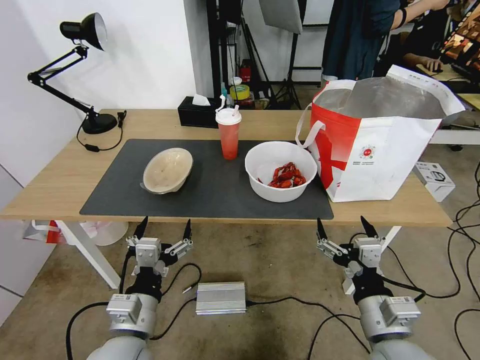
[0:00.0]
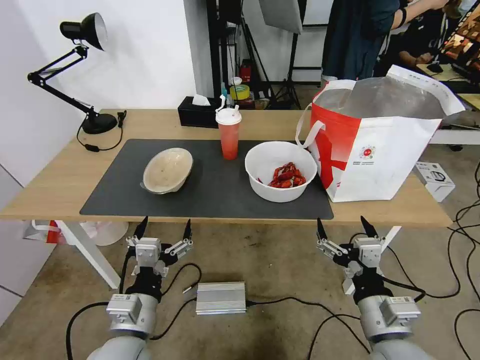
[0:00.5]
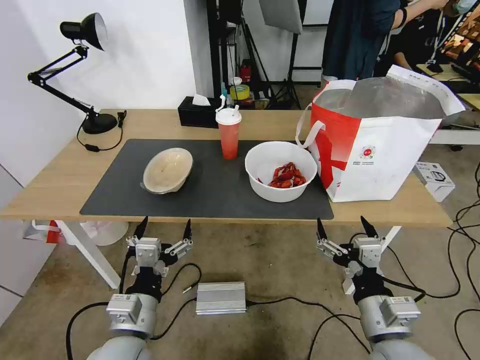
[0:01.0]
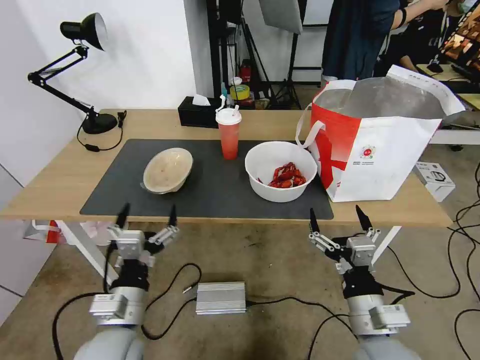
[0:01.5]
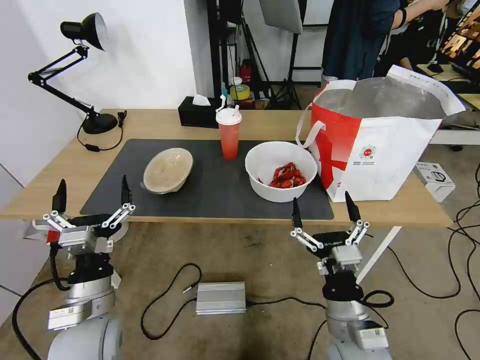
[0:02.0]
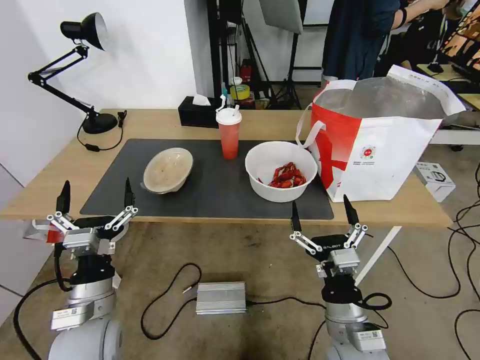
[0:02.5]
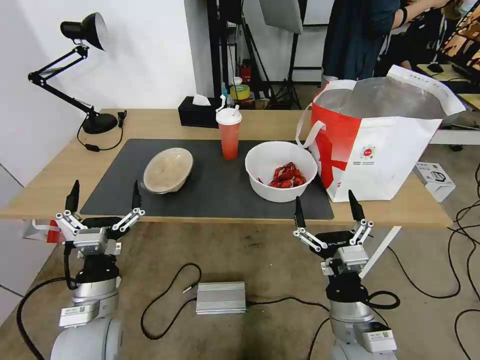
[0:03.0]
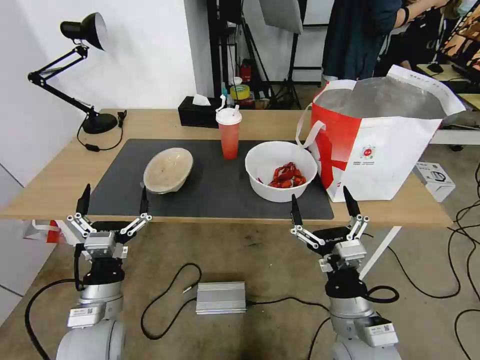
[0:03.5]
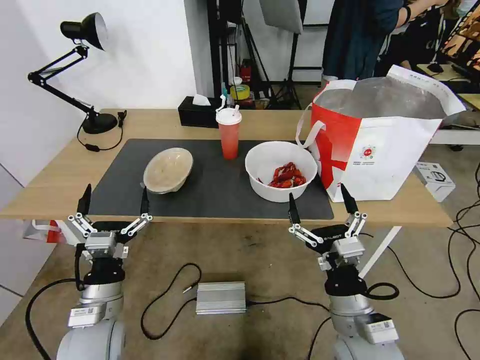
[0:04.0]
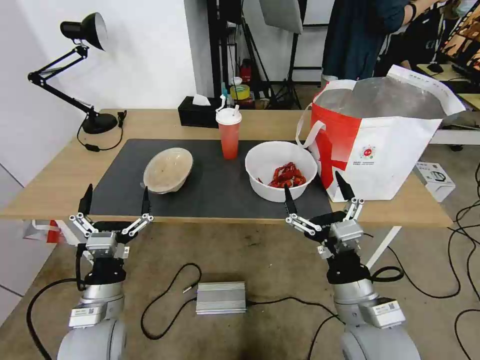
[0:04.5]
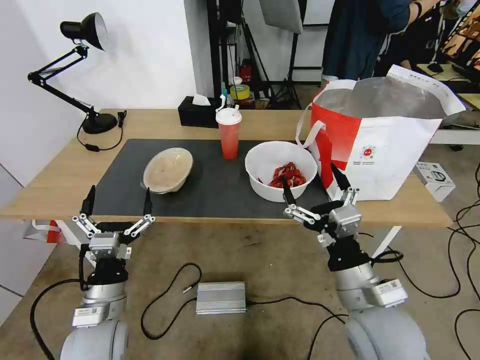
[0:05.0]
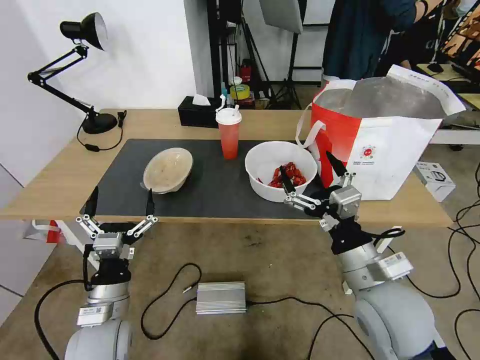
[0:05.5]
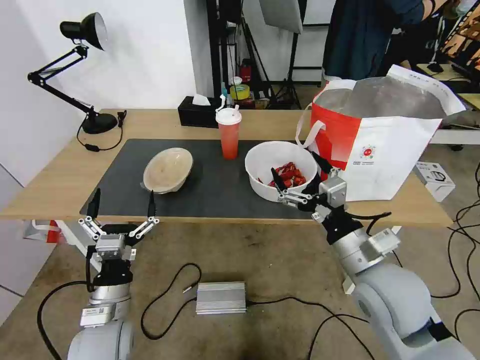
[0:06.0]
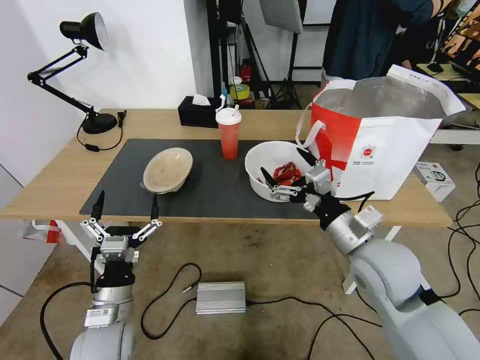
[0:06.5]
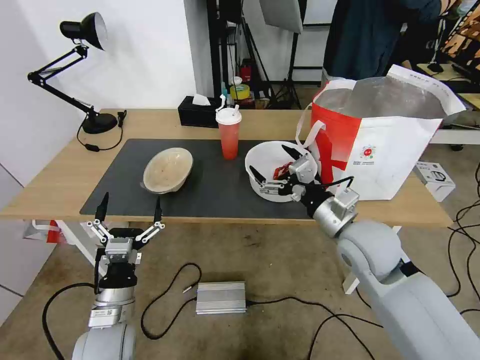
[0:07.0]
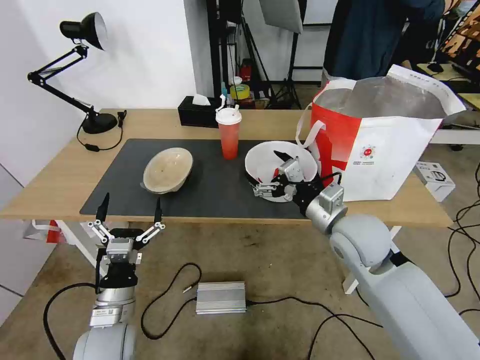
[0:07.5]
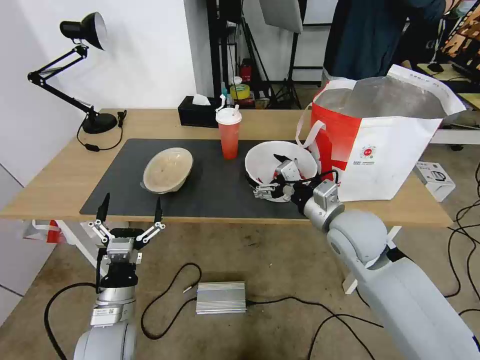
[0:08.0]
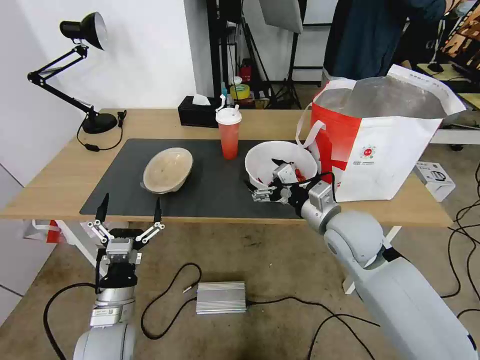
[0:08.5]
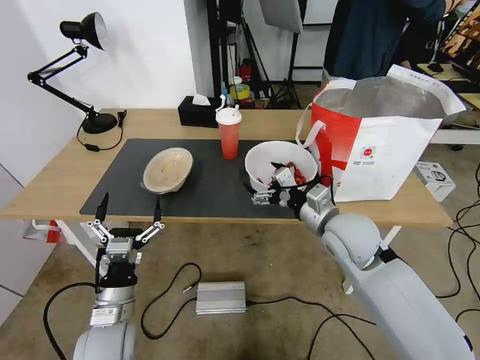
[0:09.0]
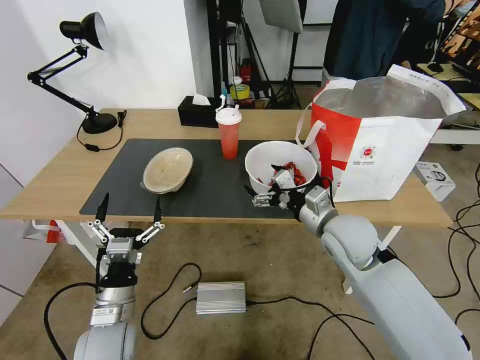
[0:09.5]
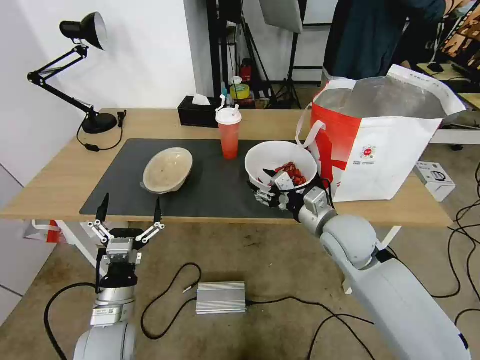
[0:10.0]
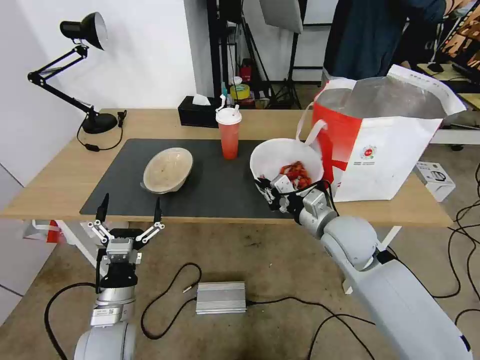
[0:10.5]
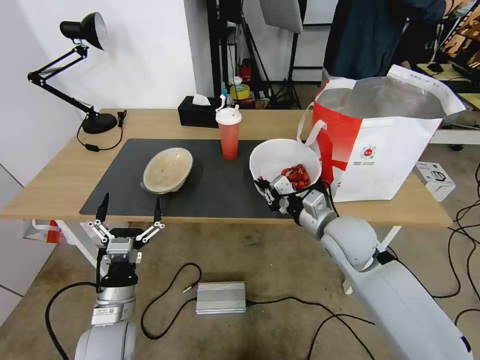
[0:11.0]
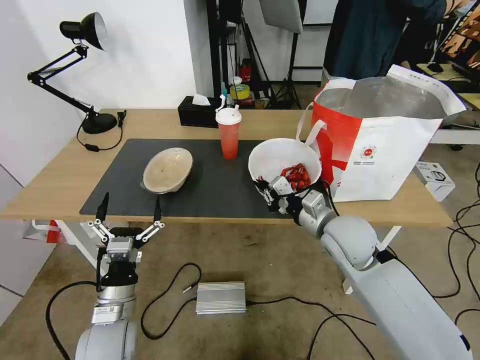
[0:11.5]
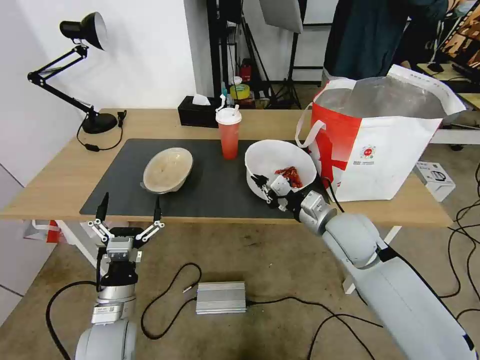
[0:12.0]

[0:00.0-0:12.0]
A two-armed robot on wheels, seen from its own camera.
Task of the whole recording: Pick up the trash from the table and place it into the takeout bag.
0:02.0 to 0:04.0: There are only small adjustments of the grippers.
0:04.0 to 0:06.0: The right gripper goes approximately 10 cm upward and forward.
0:06.0 to 0:08.0: The right gripper heads forward, covering approximately 10 cm.
0:08.0 to 0:10.0: The right gripper closes up.
0:10.0 to 0:12.0: The right gripper closes.

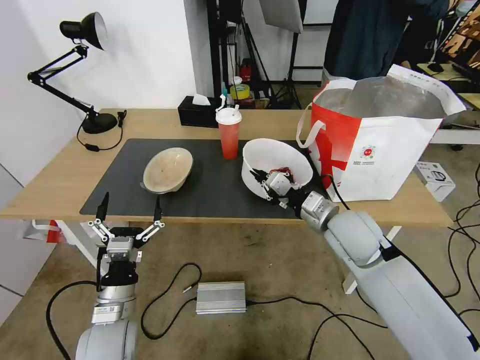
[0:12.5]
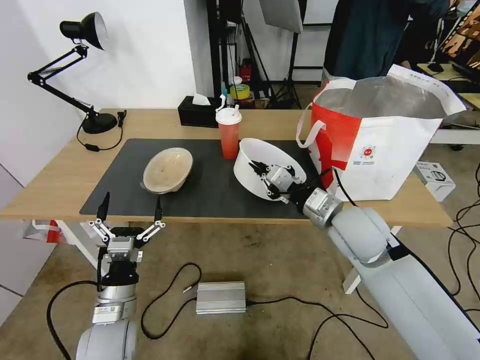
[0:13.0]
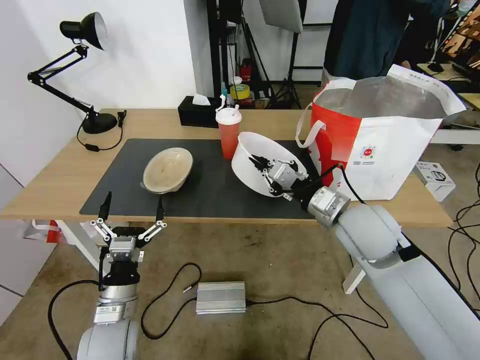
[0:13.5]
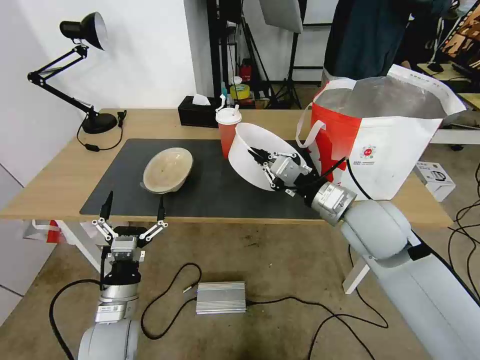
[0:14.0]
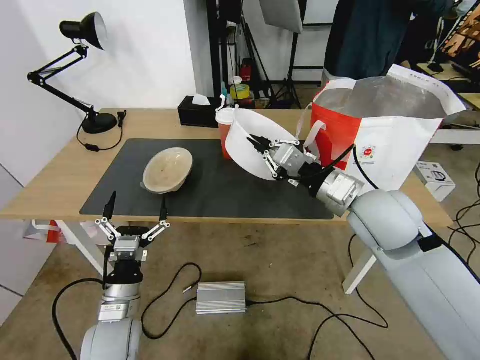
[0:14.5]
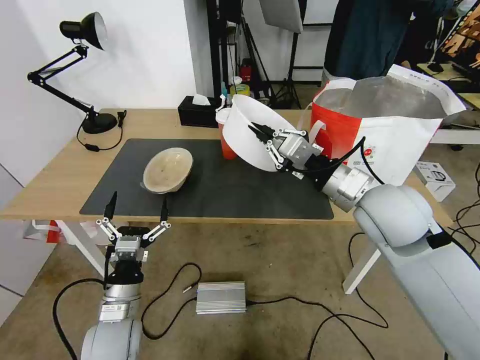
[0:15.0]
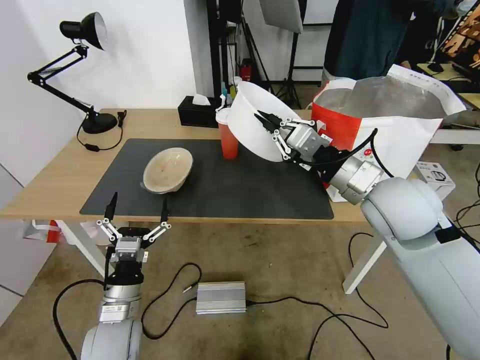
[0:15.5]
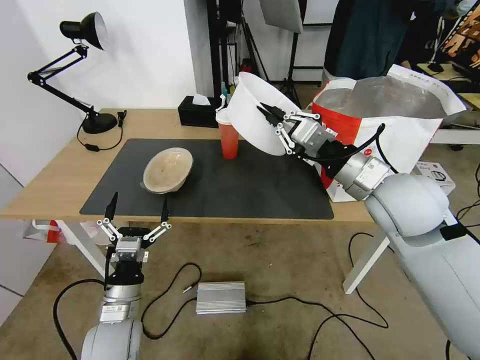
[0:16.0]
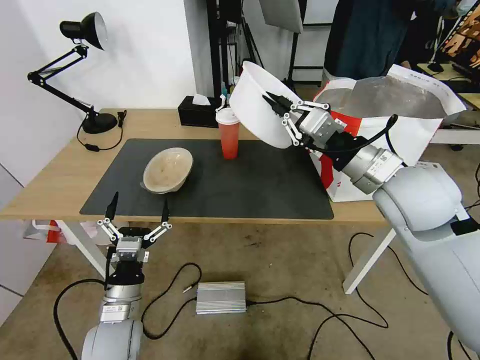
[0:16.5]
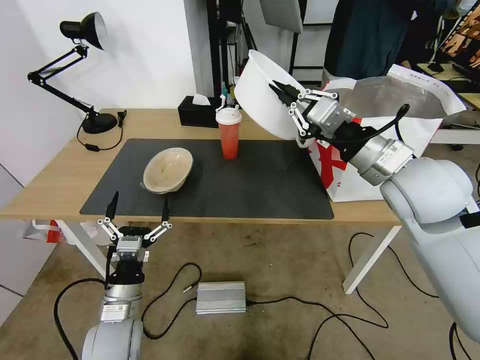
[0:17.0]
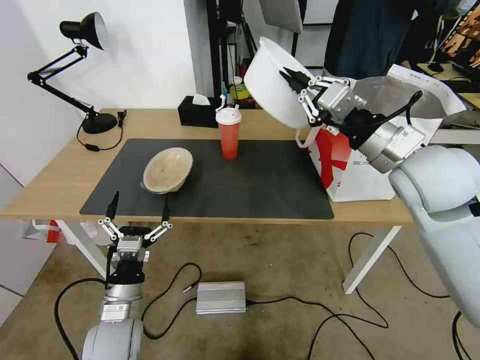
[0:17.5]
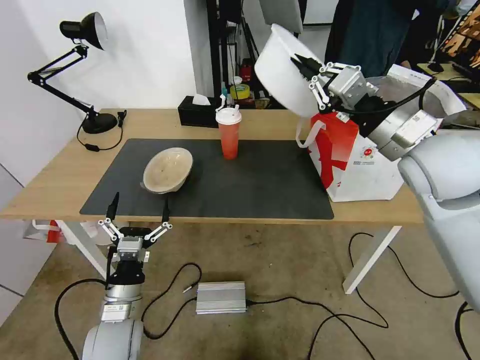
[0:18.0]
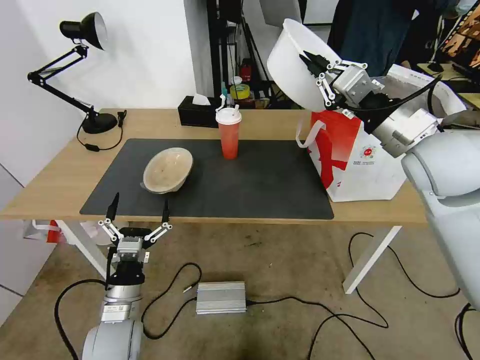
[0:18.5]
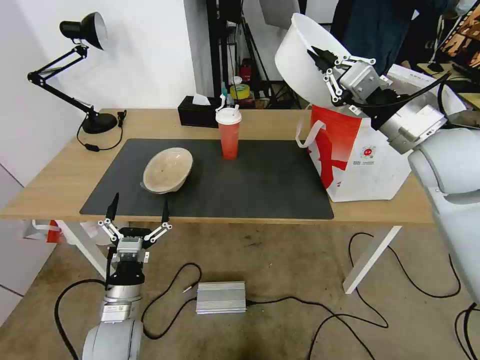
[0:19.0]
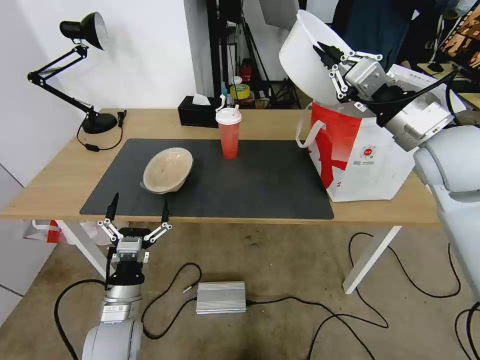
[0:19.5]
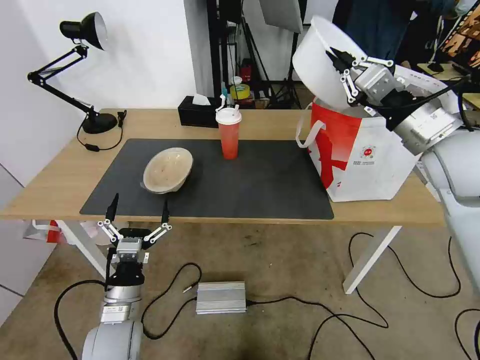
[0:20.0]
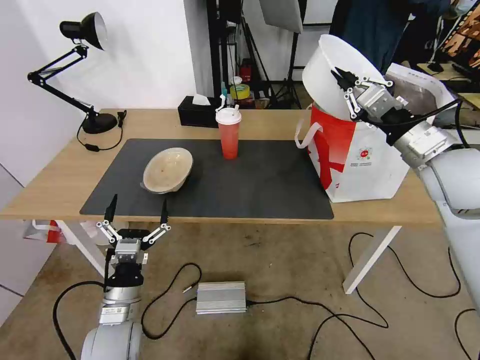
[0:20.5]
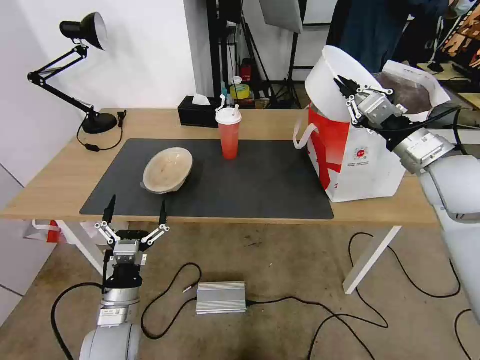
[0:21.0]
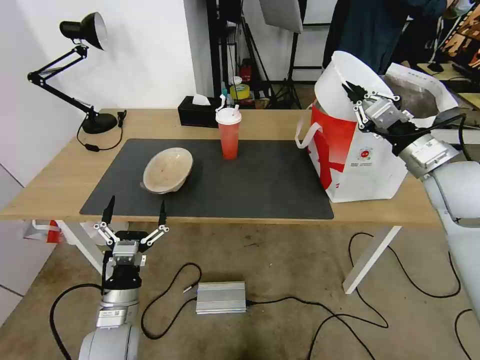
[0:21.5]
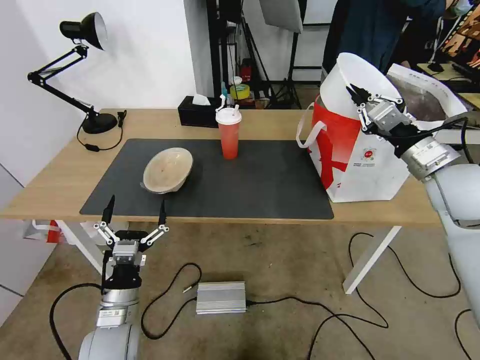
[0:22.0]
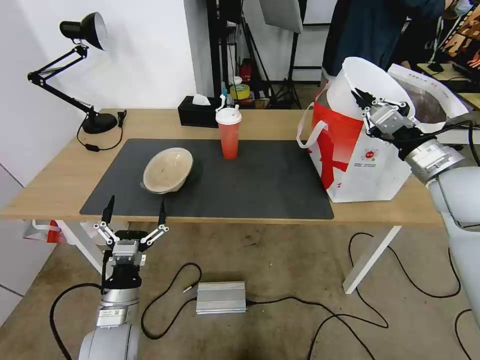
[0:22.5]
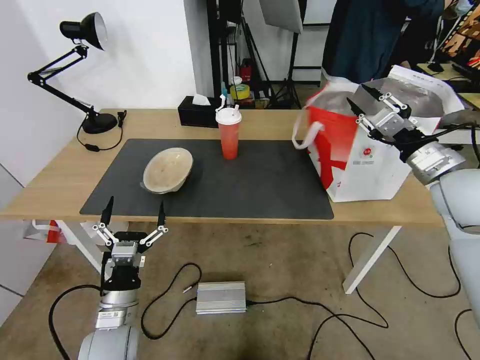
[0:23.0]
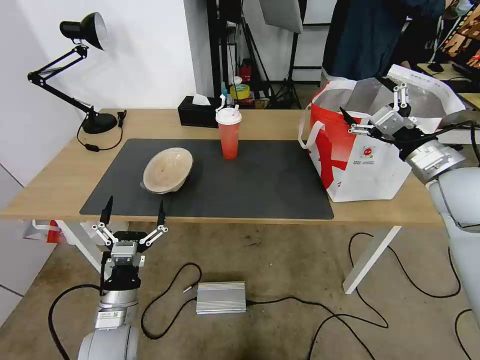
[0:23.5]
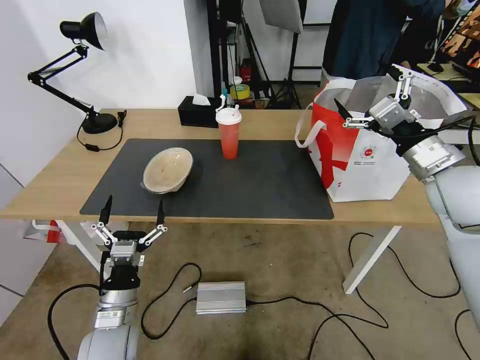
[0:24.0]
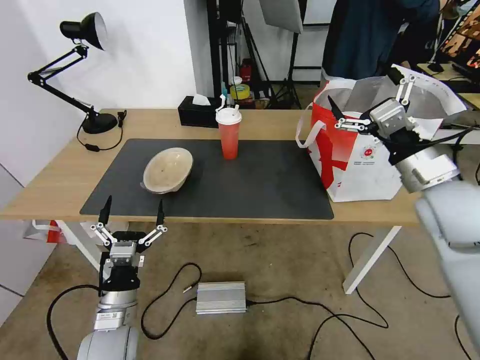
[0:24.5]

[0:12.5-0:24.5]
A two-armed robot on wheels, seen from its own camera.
Task of the whole recording: Pick up the trash from the table and place it into the takeout bag.
0:12.5 to 0:14.5: The right gripper travels upward by approximately 10 cm.
0:14.5 to 0:16.5: The right gripper ends up roughly 5 cm from where it was.
0:16.5 to 0:18.5: The right gripper shifts by approximately 5 cm.
0:18.5 to 0:20.5: The right gripper shifts by some 5 cm.
0:20.5 to 0:22.5: The right gripper changes place by approximately 5 cm.
0:22.5 to 0:24.5: The right gripper ends up some 5 cm from where it was, and opens.

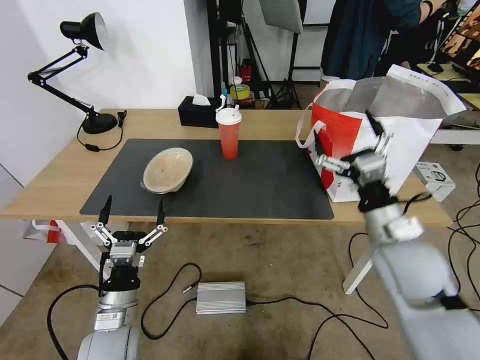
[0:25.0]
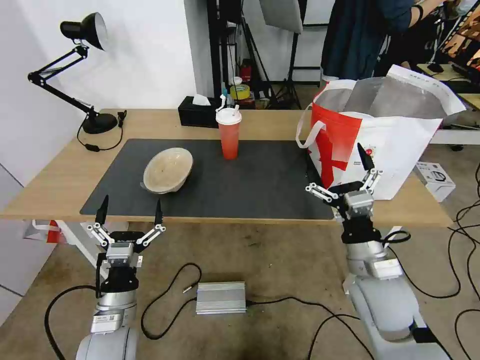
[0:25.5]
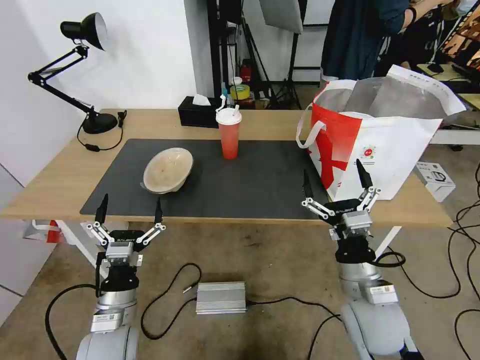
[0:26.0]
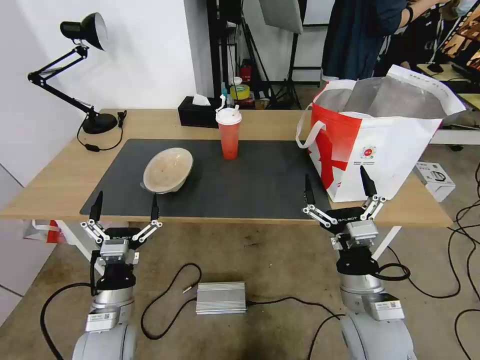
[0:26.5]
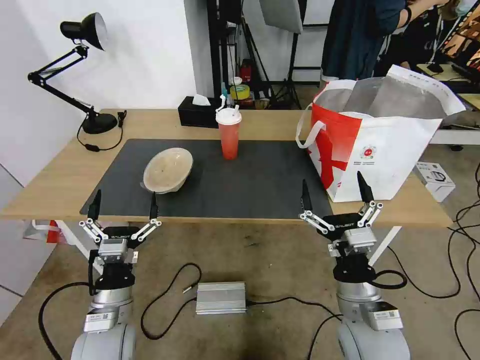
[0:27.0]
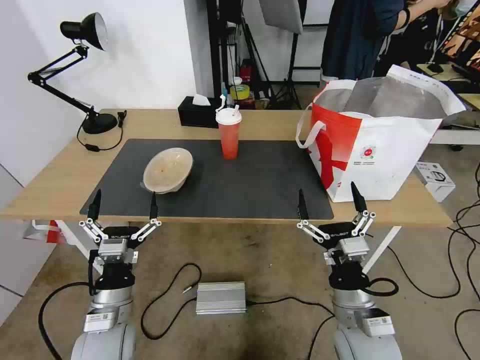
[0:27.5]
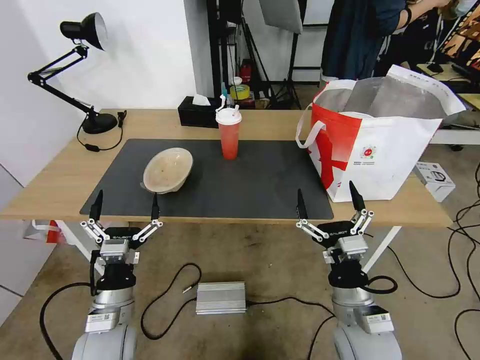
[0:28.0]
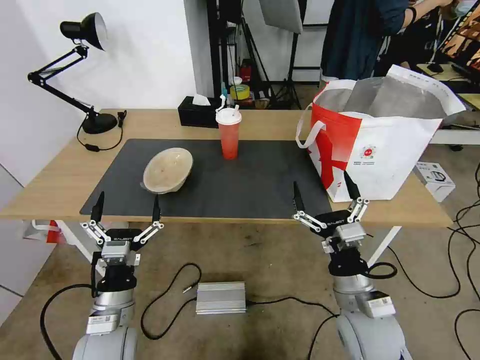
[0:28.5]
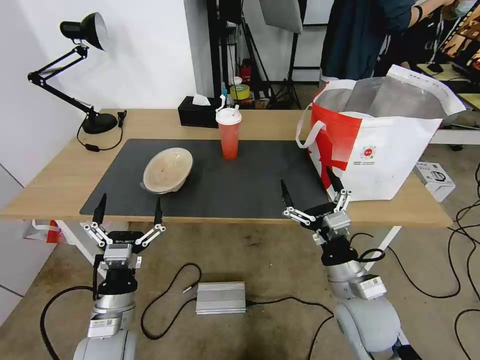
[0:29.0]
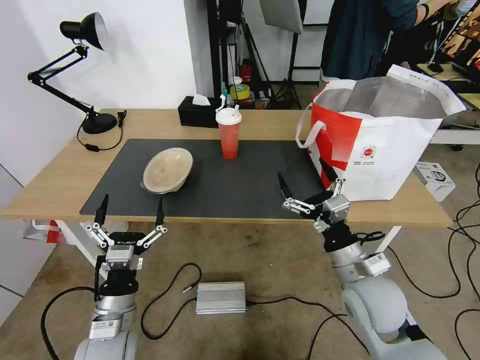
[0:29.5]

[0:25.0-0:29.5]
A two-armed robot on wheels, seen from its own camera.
Task of the whole recording: Pick up the trash from the table and place it into the takeout bag.
0:25.0 to 0:27.0: The right gripper travels backward, downward and to the left by approximately 15 cm.
0:27.0 to 0:29.5: The right gripper goes roughly 5 cm forward.
